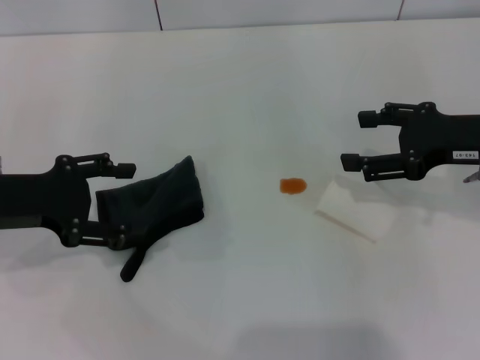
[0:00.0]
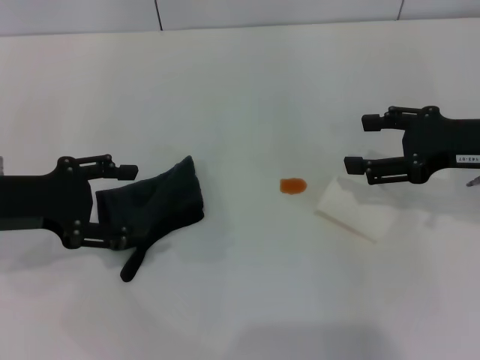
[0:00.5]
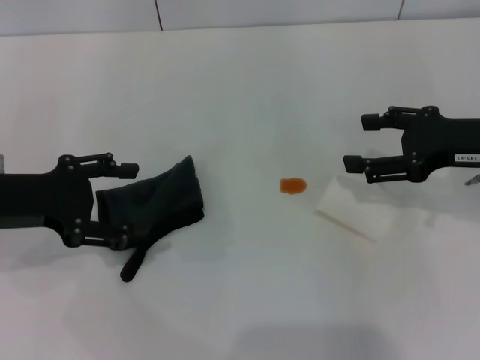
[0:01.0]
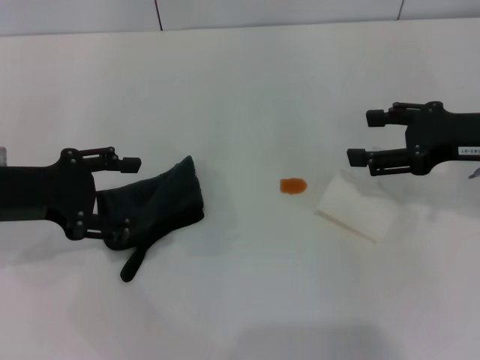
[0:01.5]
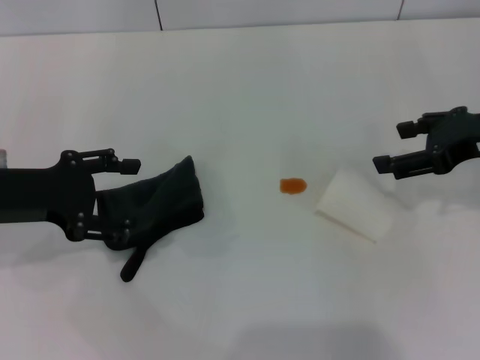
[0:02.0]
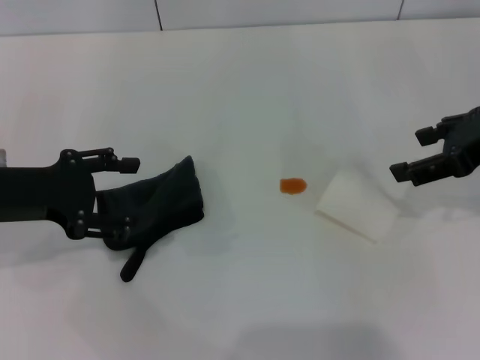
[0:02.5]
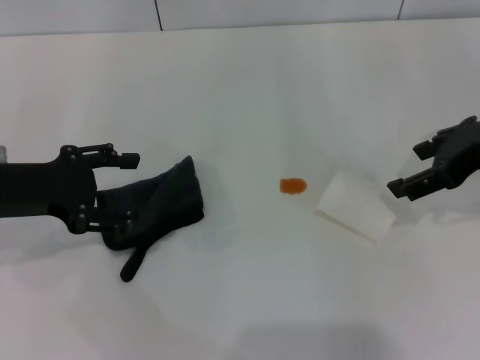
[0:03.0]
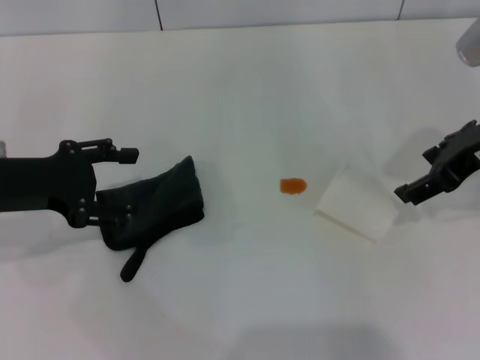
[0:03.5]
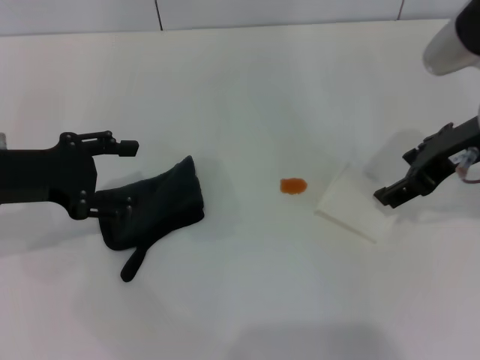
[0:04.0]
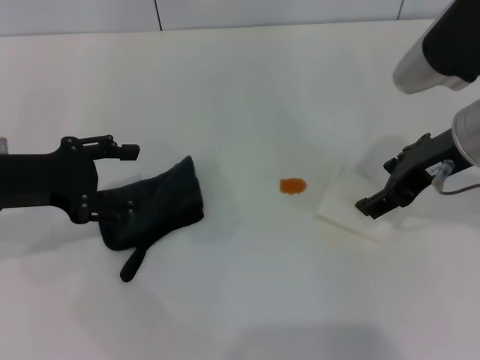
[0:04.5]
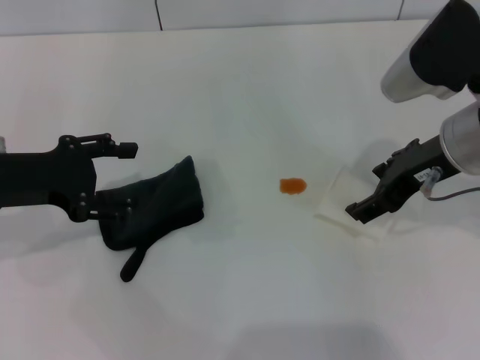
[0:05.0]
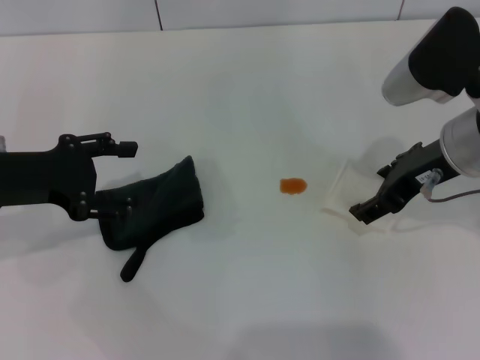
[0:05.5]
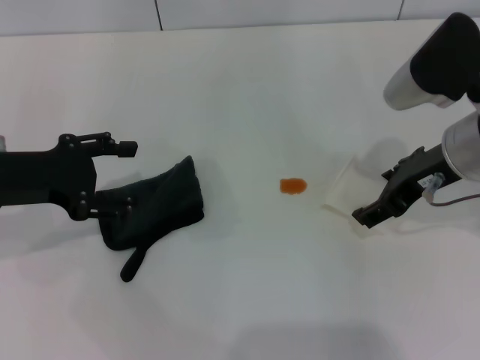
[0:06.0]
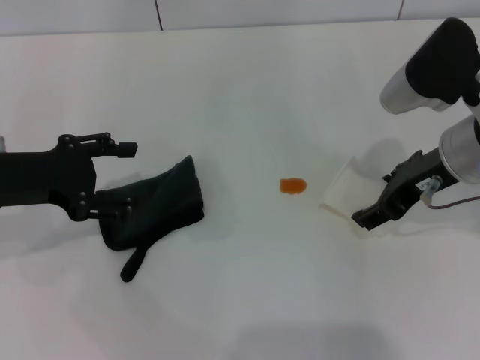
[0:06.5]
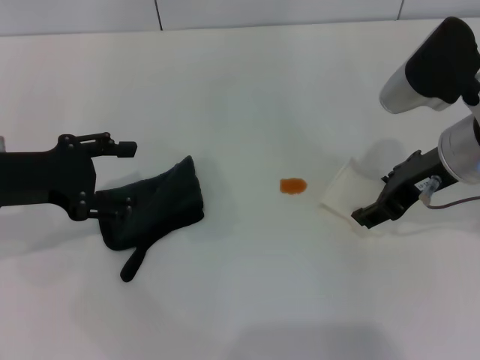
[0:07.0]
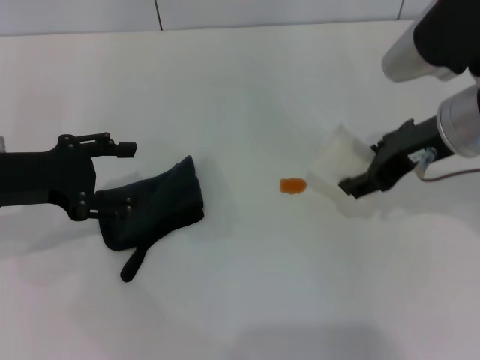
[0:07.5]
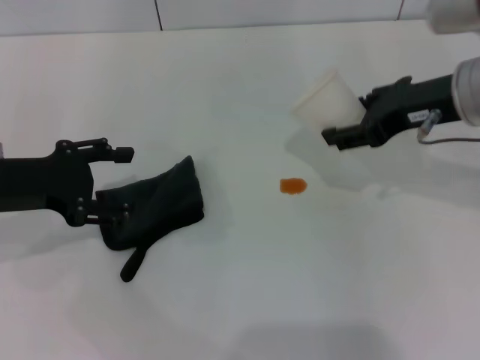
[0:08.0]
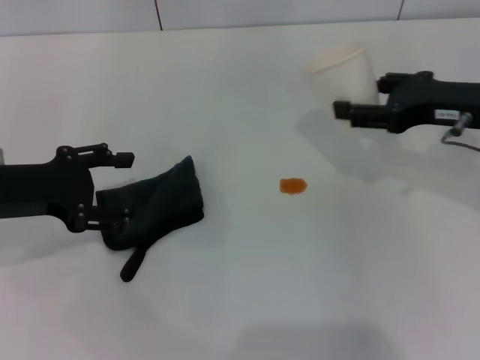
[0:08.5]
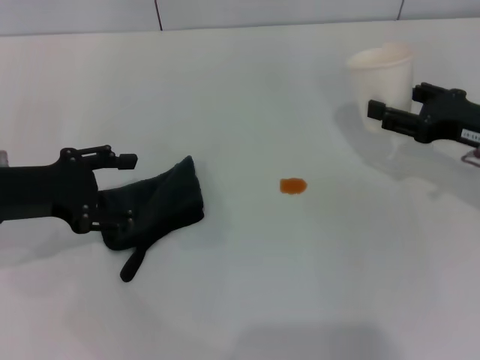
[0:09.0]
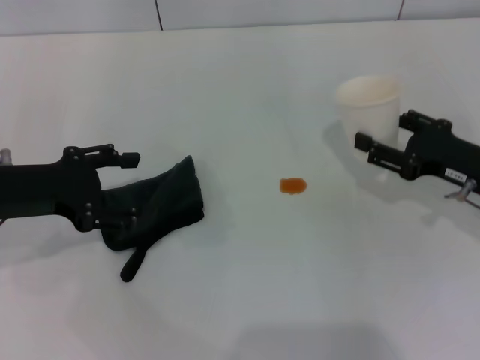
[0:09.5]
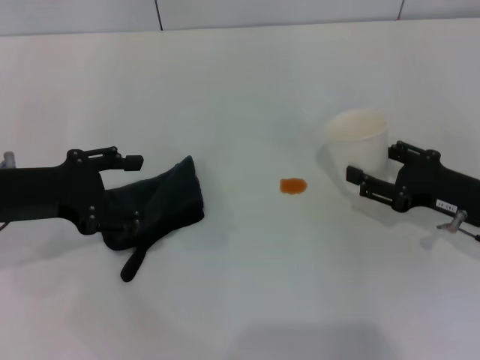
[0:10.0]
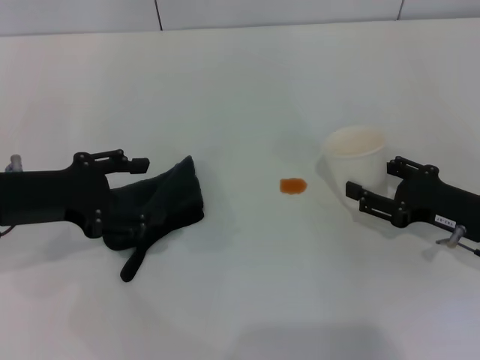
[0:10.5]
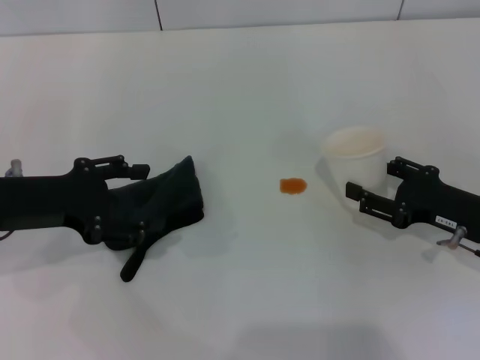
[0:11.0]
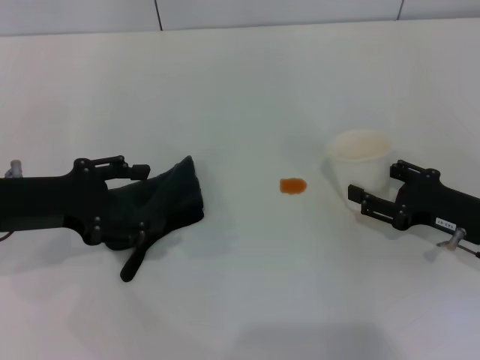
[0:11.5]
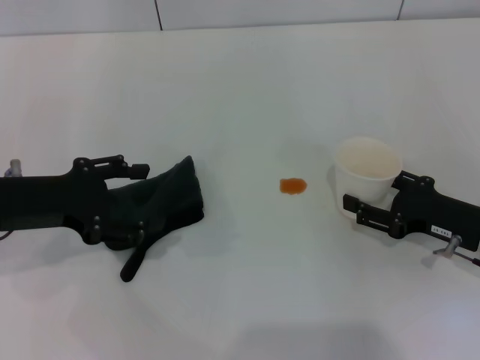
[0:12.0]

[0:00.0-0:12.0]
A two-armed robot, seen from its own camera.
Step, 0:00.0 to 0:06.5: Grasp the paper cup with the right gripper.
0:00.0 to 0:02.0: There are only small adjustments of the grippers.
0:02.0 to 0:04.0: The right gripper travels to the left by some 5 cm.
0:04.0 to 0:06.0: The grippers make only small movements.
0:06.0 to 0:08.0: The right gripper closes.
0:08.0 to 0:10.0: The right gripper moves downward and to the right, about 15 cm.
0:10.0 to 0:12.0: The grippers move only a little.

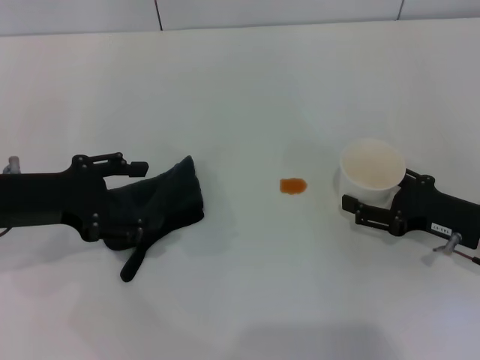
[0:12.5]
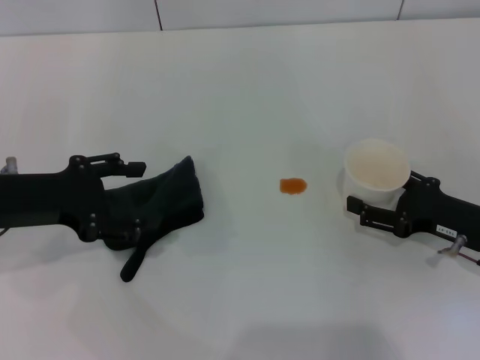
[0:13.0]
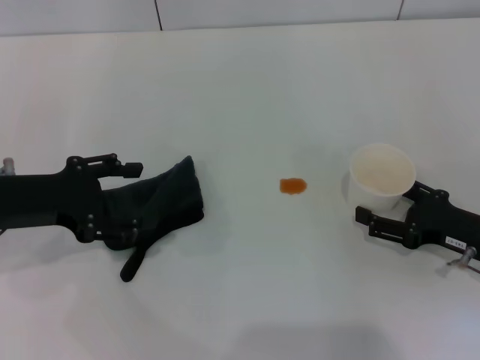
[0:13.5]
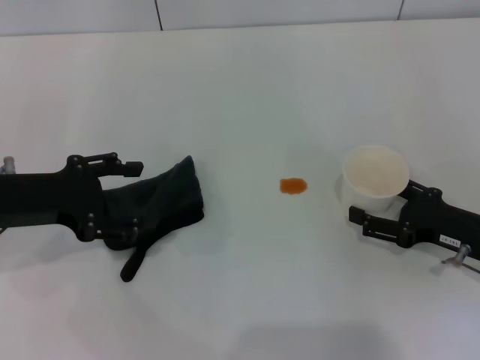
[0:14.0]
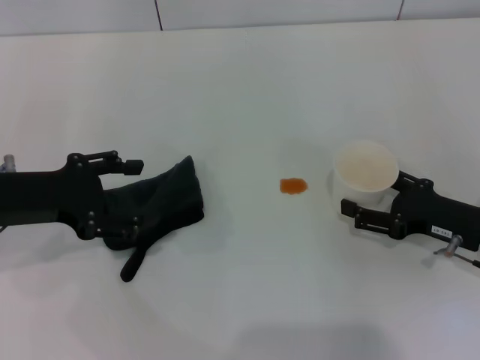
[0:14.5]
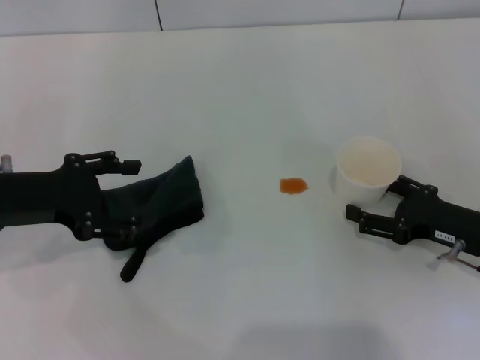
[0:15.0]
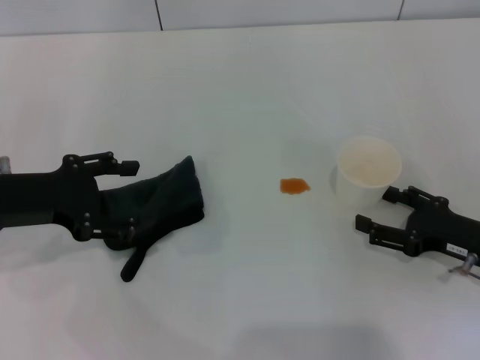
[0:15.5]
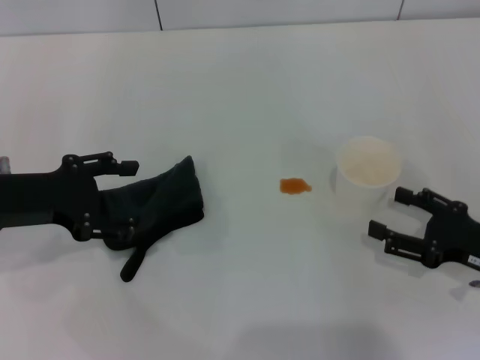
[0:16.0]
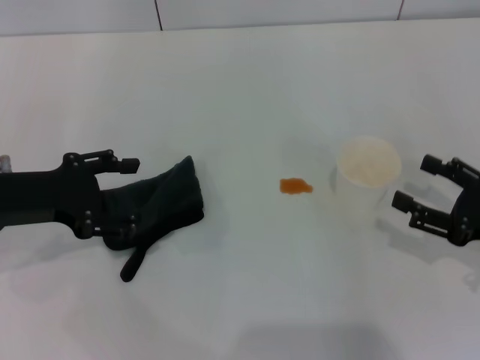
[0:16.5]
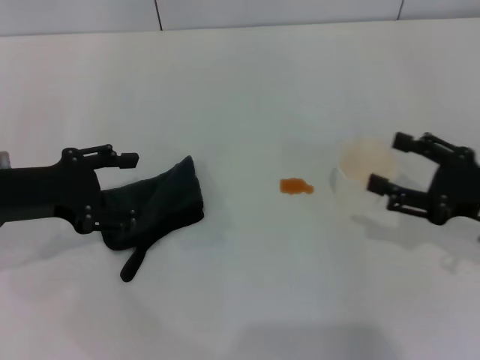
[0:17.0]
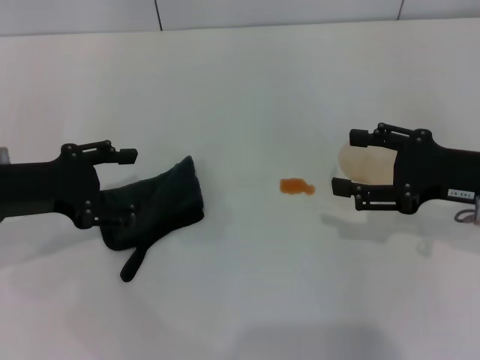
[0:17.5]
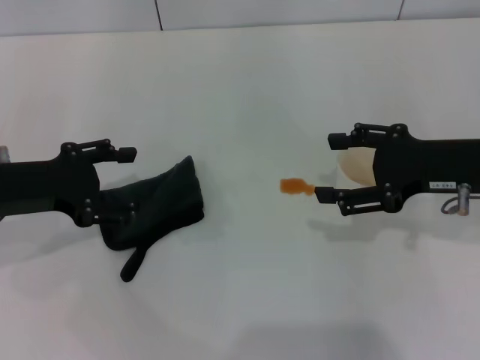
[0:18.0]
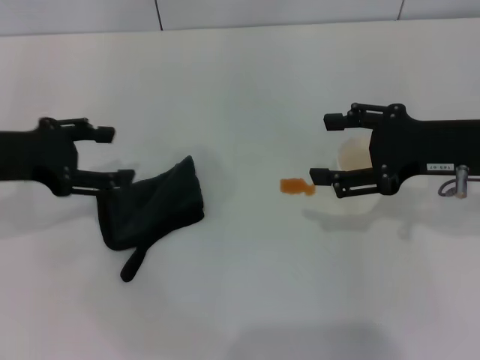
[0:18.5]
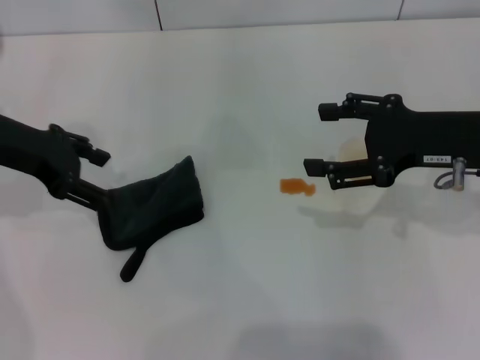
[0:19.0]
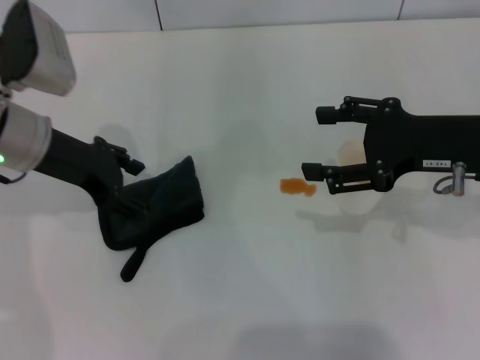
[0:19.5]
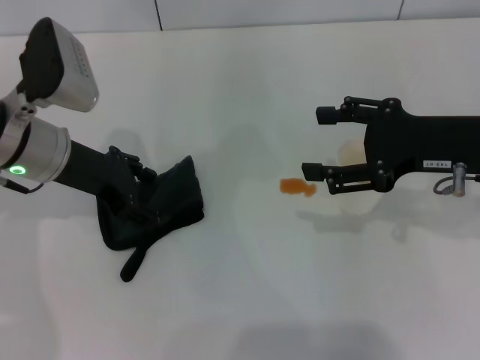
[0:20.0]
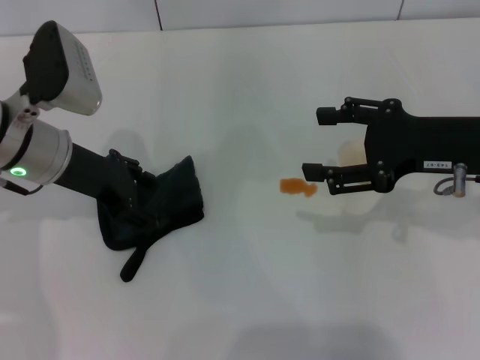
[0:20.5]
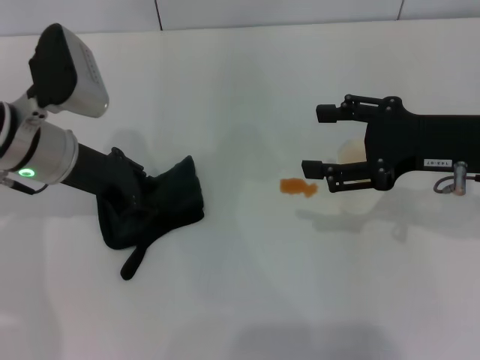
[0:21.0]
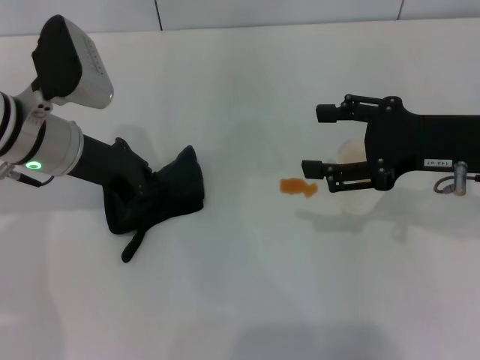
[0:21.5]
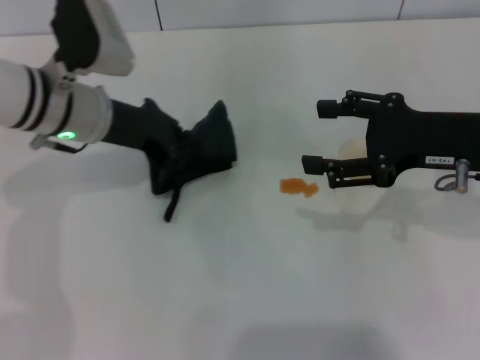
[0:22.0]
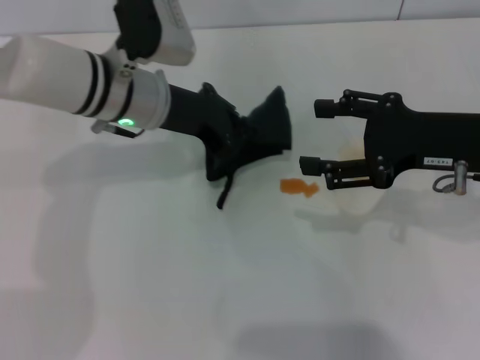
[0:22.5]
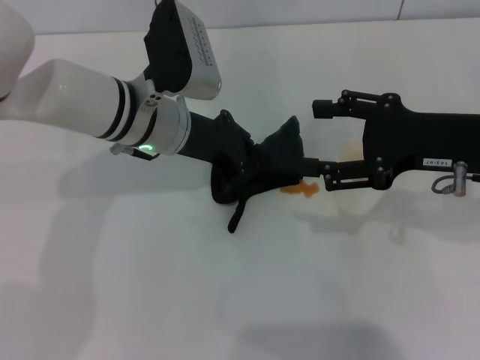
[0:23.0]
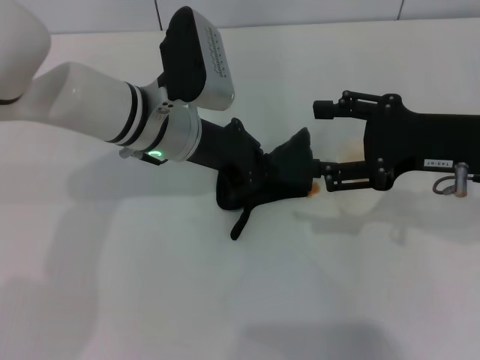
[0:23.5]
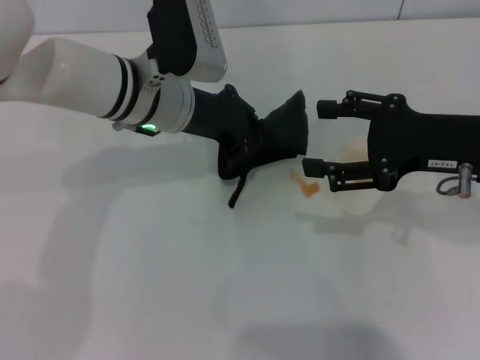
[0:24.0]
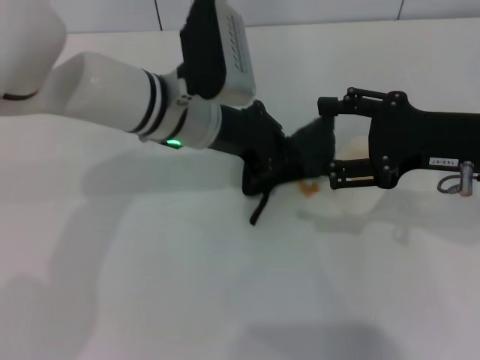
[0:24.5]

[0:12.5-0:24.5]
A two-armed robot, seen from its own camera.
Step, 0:12.5 to 0:15.5: Stand the paper cup upright with the right gripper.
Step, 0:16.0 to 0:21.0: Grasp the rag with the left gripper.
0:12.5 to 0:14.5: The right gripper opens its fingers.
0:14.5 to 0:16.5: The right gripper moves approximately 5 cm.
0:16.5 to 0:18.5: The right gripper moves upward, forward and to the left, roughly 15 cm.
0:18.5 to 0:20.5: The left gripper moves to the right, roughly 10 cm.
0:20.5 to 0:22.5: The left gripper is displaced to the right by approximately 10 cm, and closes its fingers.
0:22.5 to 0:24.5: The left gripper changes place by about 5 cm.

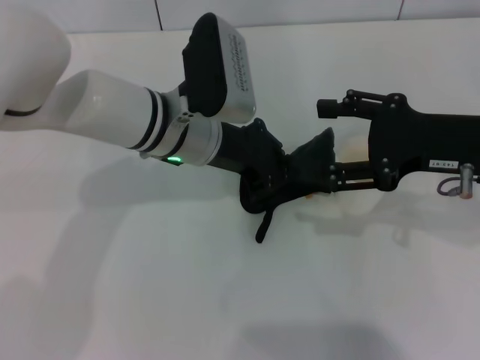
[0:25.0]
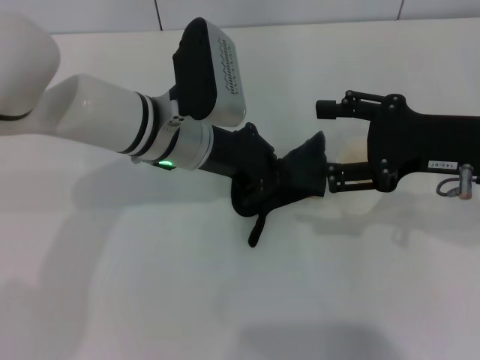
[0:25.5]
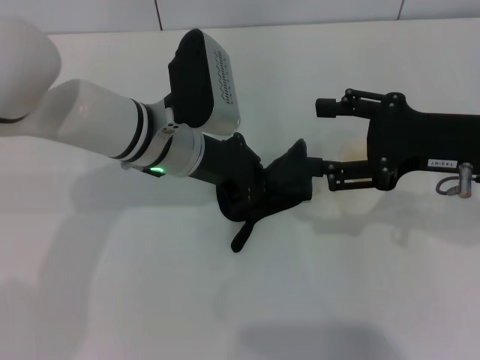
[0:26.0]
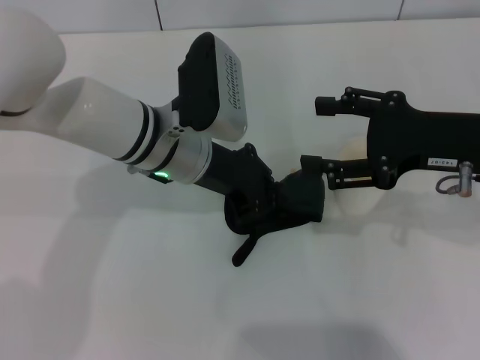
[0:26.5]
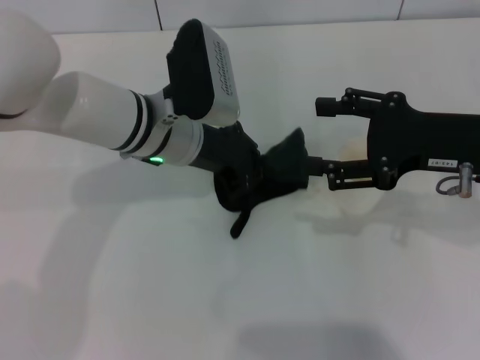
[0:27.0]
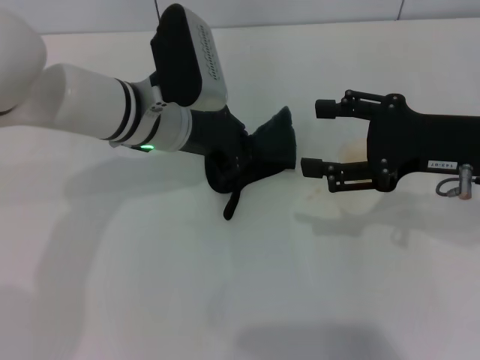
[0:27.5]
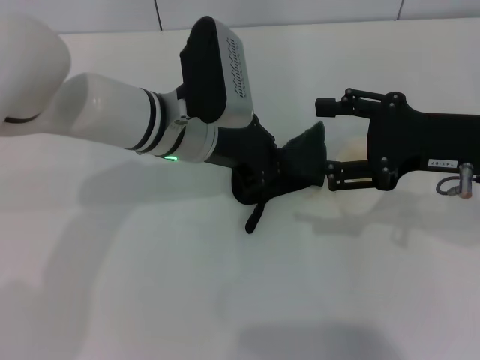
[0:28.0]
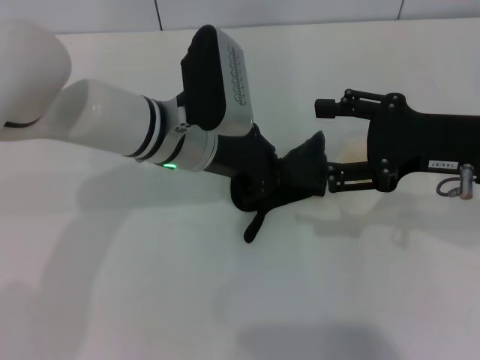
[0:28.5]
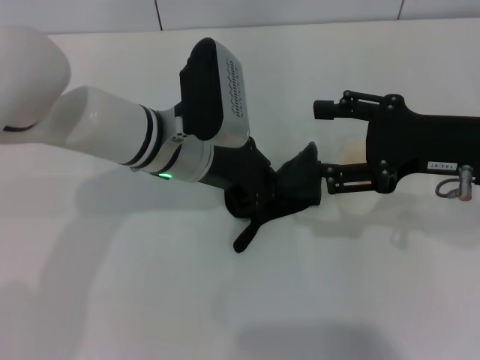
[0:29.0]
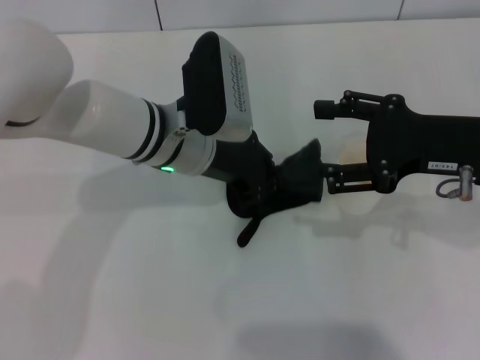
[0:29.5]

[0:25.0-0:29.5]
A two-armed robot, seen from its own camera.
0:25.0 to 0:29.5: The grippers move only a little.
